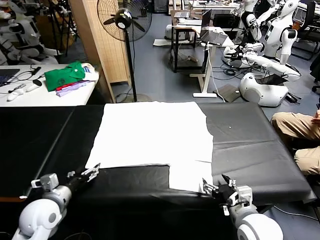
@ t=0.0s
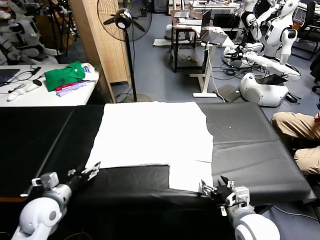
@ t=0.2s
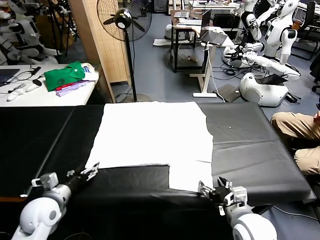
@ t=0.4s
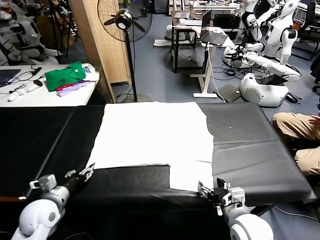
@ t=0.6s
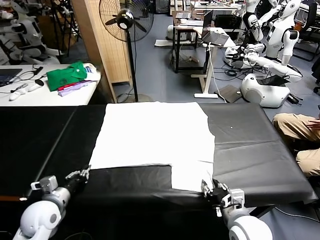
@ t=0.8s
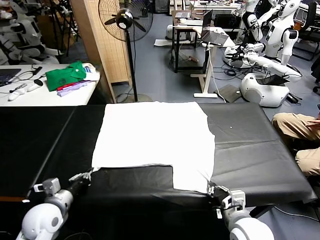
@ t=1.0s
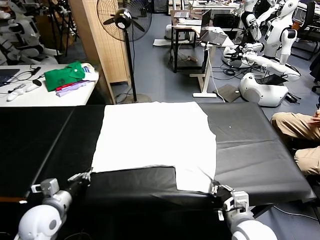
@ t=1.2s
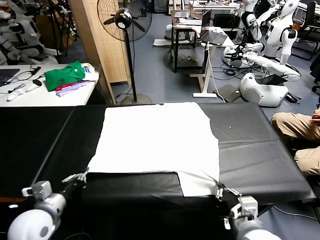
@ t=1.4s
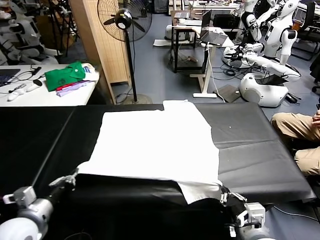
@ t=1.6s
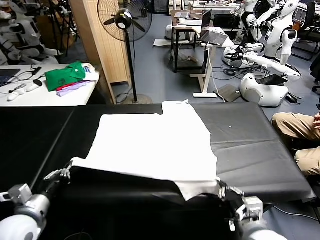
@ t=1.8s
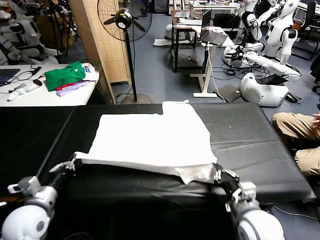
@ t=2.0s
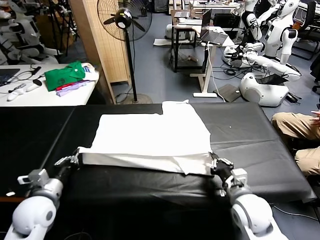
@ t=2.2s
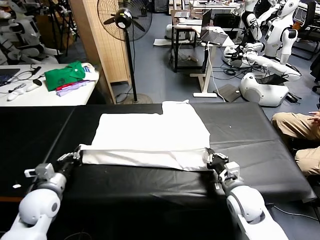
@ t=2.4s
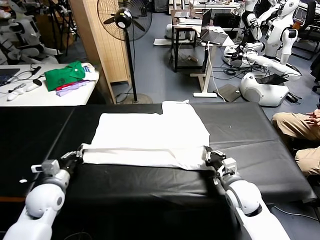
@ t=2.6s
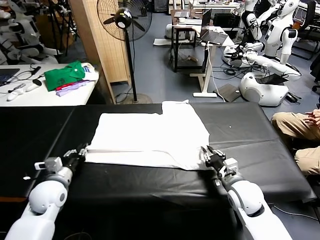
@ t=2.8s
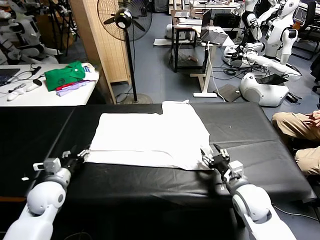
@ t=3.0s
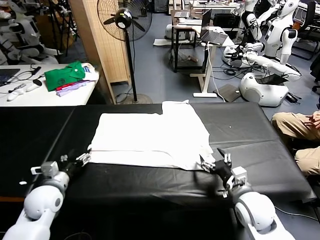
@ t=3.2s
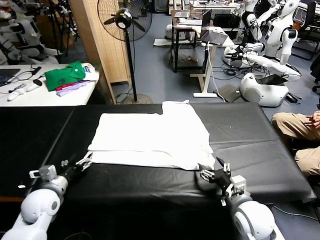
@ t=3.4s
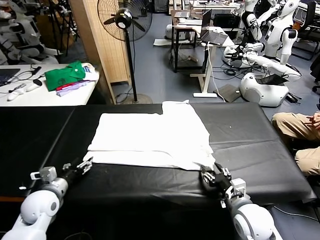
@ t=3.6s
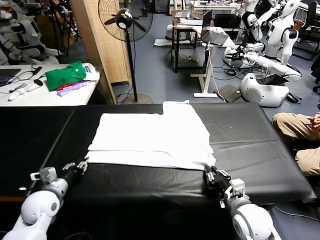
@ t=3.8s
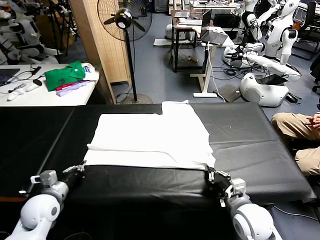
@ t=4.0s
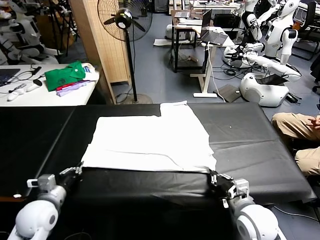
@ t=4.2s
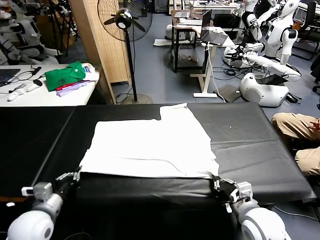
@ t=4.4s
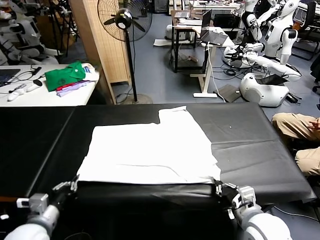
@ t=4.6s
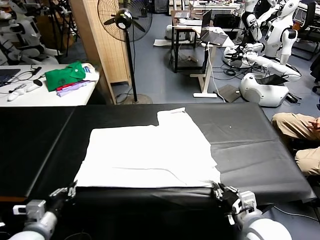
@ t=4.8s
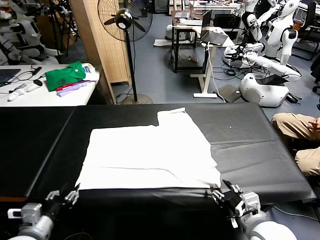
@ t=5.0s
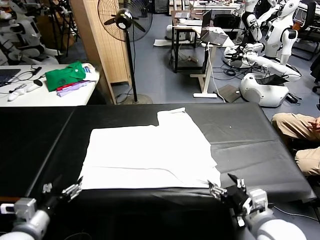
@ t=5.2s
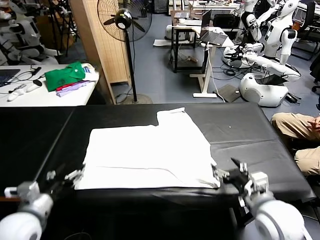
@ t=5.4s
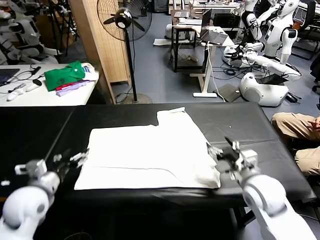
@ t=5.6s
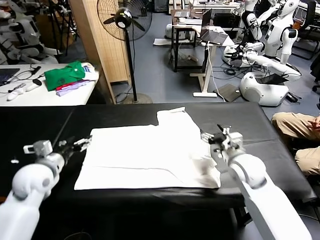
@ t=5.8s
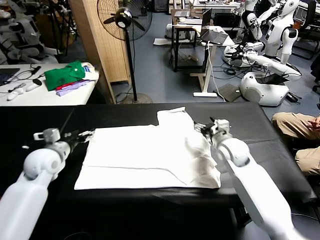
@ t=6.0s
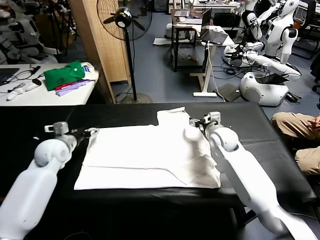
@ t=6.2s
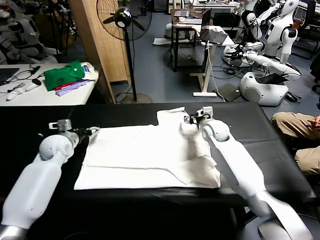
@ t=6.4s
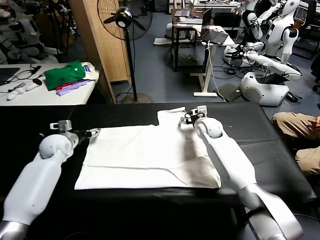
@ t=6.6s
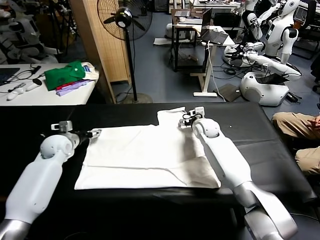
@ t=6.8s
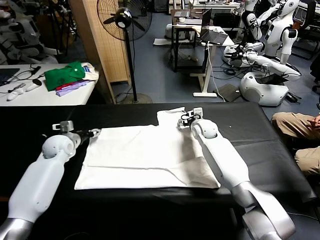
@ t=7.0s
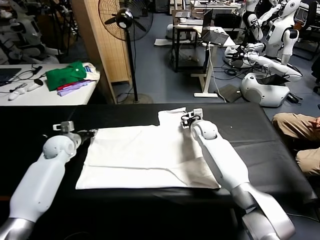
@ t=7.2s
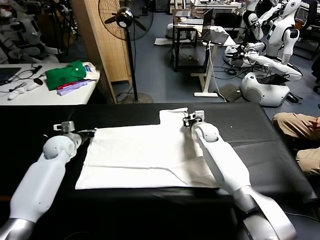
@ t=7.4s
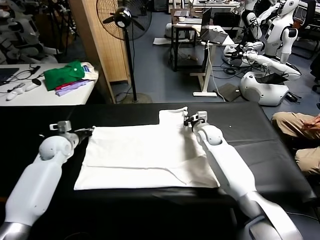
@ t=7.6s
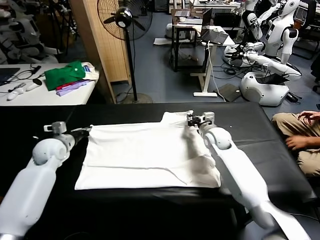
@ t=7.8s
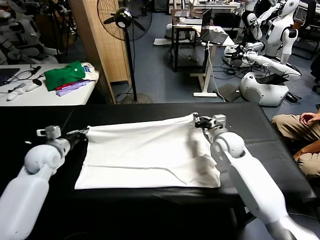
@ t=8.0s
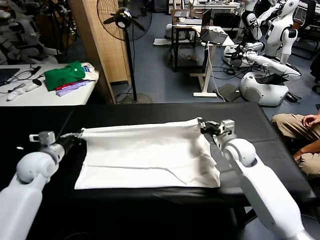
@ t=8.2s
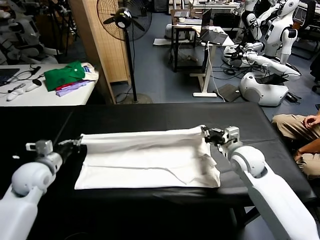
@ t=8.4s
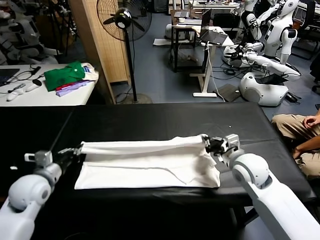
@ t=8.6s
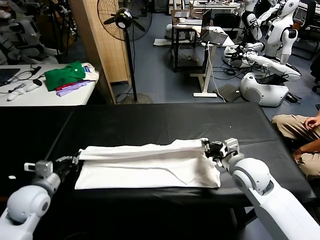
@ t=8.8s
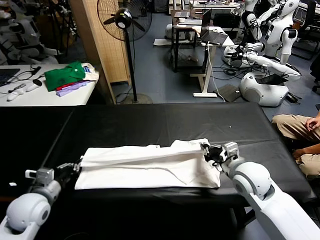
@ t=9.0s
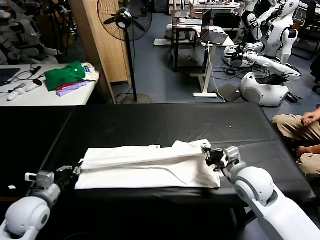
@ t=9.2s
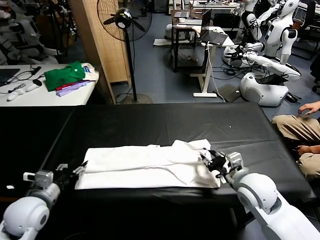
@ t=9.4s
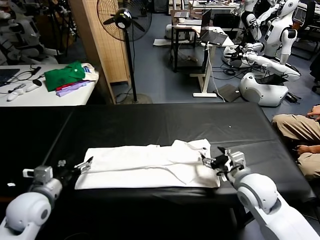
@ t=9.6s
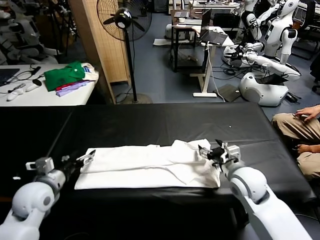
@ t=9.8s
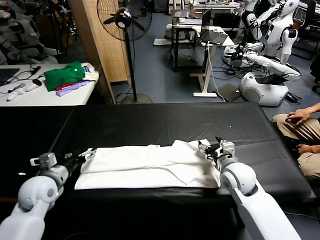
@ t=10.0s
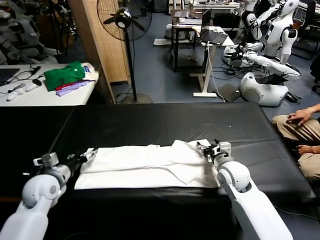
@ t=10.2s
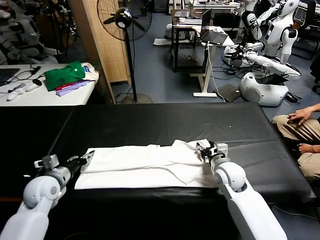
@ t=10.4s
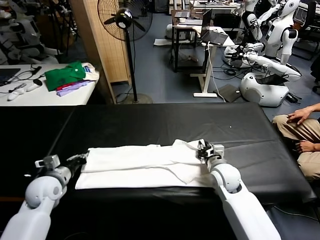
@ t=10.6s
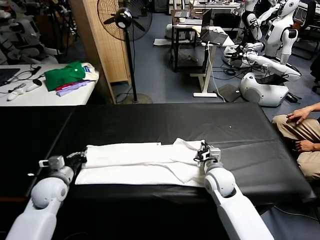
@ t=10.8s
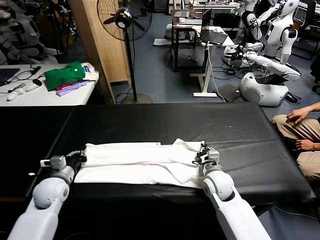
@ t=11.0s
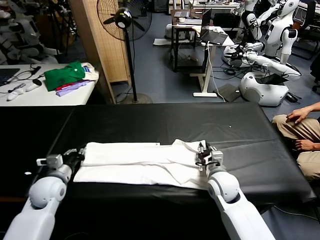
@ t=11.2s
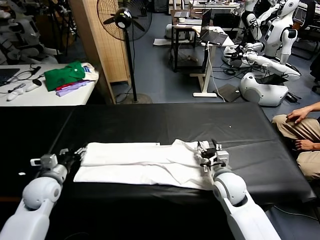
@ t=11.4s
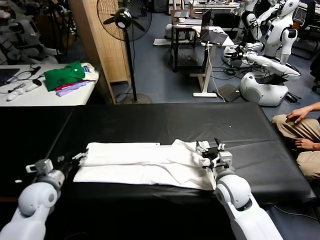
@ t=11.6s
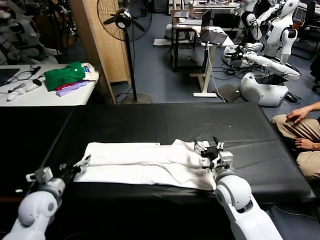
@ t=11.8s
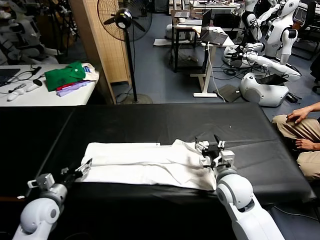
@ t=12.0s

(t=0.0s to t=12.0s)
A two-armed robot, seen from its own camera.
Task of the whole recording: fold and organize the clothes.
Step, t=0.0s - t=1.0s: use both grippers simultaneously to clamp the lower edge of the clothing fabric.
Step, t=1.2s - t=2.8s: use both grippers to drag the lower edge of the fabric forward and fold it over the upper edge.
Step, t=3.0s - t=5.0s: Drag the clothes downward with both gripper.
Step, t=5.2s - t=7.4s: use both grippers simultaneously to clamp the upper edge of the clothing fabric.
Step, t=7.6s - t=9.4s: use both grippers to drag the upper edge of the fabric backward and fold it over the lower edge.
t=1.6s - t=3.0s: The grippers both shift forward and downward by about 15 cm. The left gripper opens up. The right gripper opens up.
t=3.0s - t=4.4s: The left gripper shifts approximately 10 cm backward, and closes up. Meanwhile the right gripper heads backward, covering approximately 5 cm, and closes its fingers.
t=4.4s - t=6.0s: The grippers both shift forward by approximately 25 cm. The right gripper opens. The left gripper opens.
t=6.0s - t=7.6s: The right gripper closes its fingers, while the left gripper moves forward, about 5 cm, and closes its fingers.
t=7.6s - t=9.0s: Both grippers travel together backward, roughly 20 cm.
t=9.0s - t=10.4s: The right gripper travels downward and forward by some 10 cm, and opens; the left gripper moves forward, roughly 5 cm, and opens its fingers.
t=10.4s - t=12.0s: Both grippers travel together backward, approximately 5 cm. The right gripper opens its fingers. Meanwhile the left gripper opens.

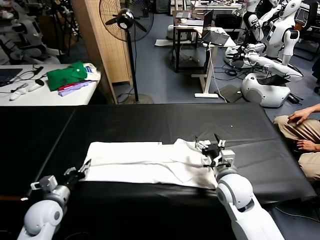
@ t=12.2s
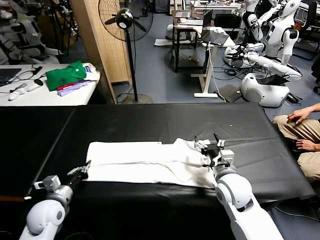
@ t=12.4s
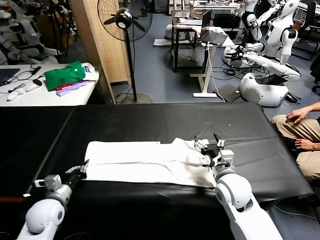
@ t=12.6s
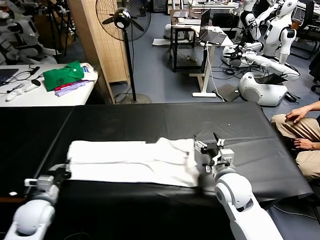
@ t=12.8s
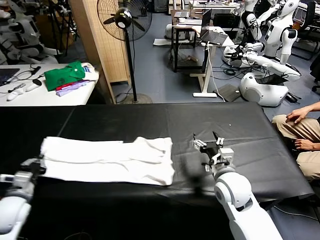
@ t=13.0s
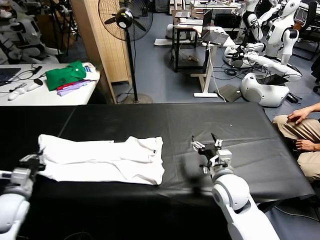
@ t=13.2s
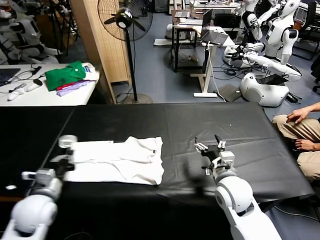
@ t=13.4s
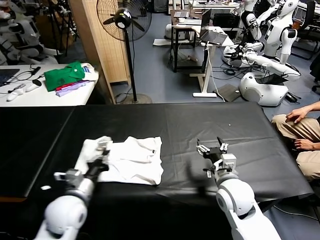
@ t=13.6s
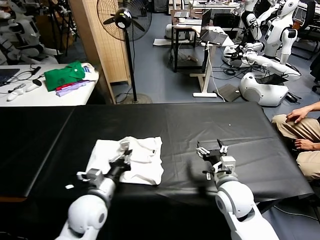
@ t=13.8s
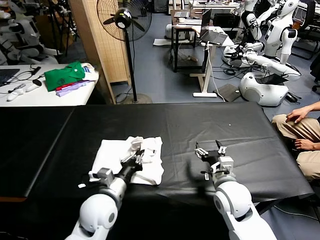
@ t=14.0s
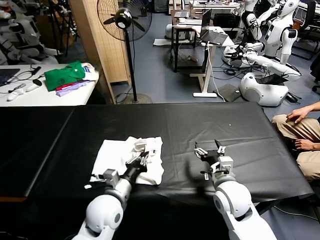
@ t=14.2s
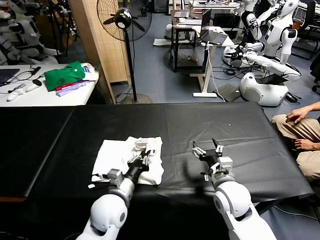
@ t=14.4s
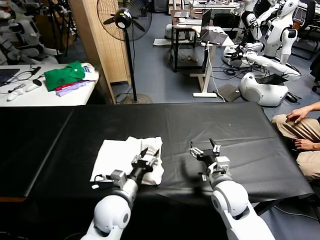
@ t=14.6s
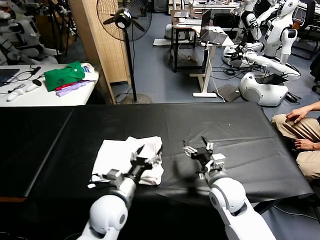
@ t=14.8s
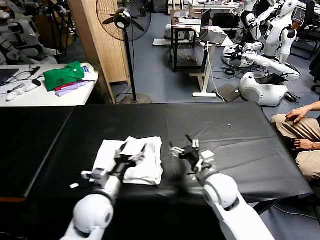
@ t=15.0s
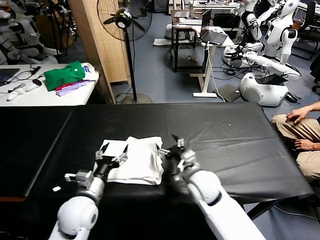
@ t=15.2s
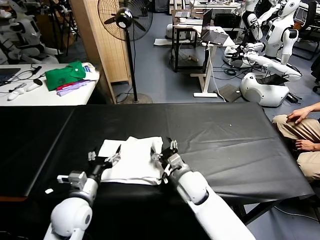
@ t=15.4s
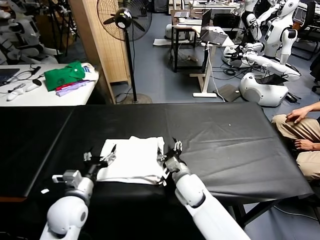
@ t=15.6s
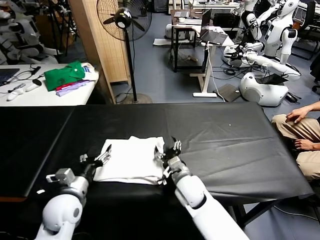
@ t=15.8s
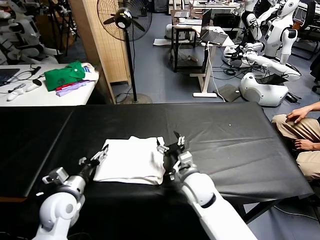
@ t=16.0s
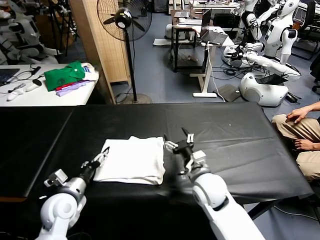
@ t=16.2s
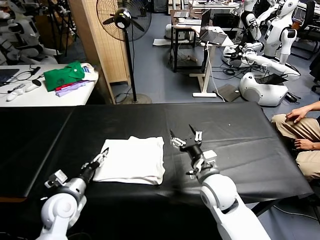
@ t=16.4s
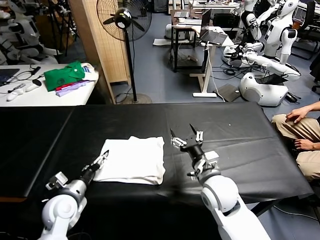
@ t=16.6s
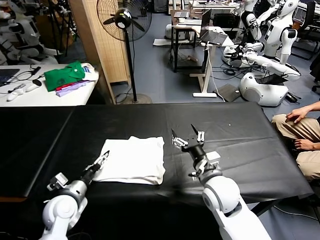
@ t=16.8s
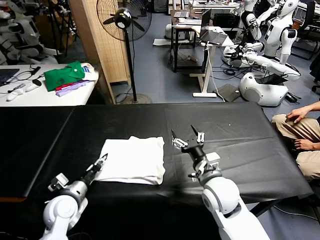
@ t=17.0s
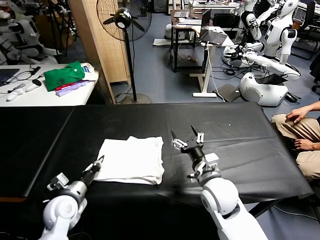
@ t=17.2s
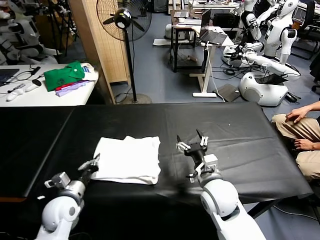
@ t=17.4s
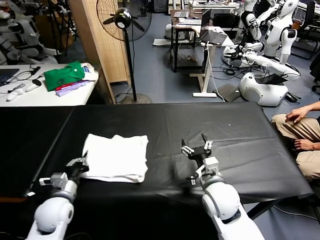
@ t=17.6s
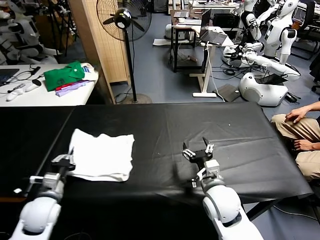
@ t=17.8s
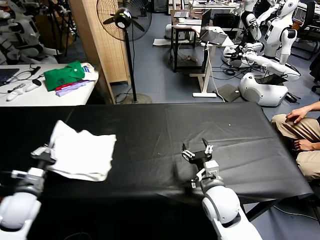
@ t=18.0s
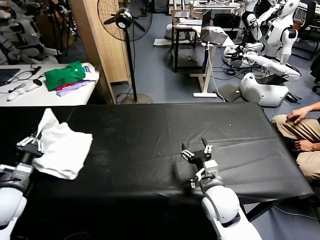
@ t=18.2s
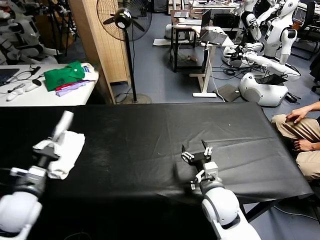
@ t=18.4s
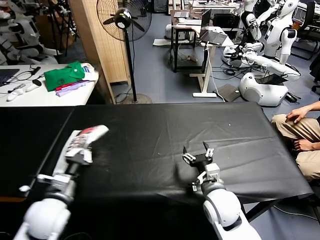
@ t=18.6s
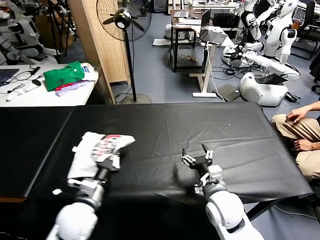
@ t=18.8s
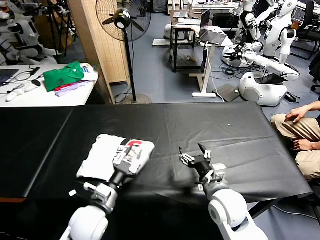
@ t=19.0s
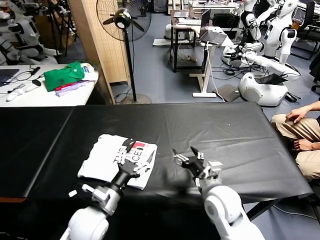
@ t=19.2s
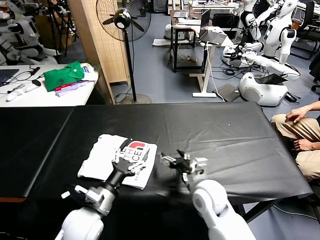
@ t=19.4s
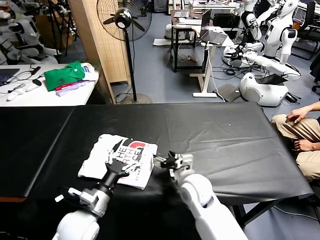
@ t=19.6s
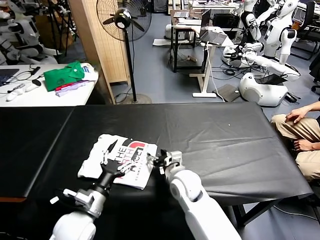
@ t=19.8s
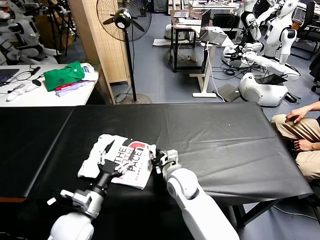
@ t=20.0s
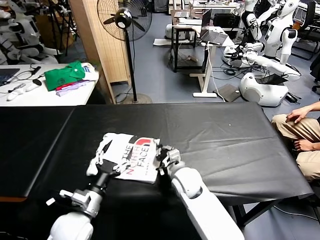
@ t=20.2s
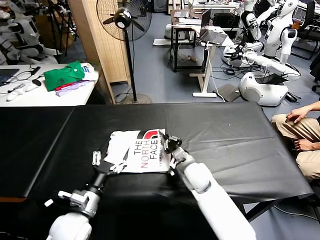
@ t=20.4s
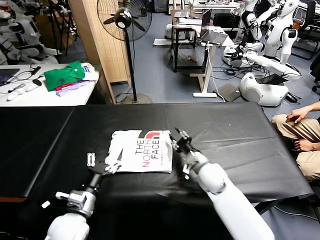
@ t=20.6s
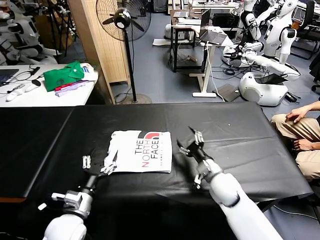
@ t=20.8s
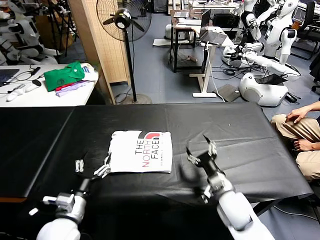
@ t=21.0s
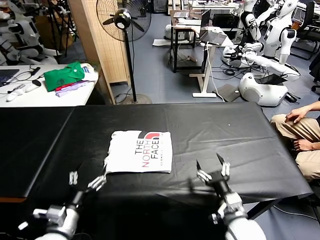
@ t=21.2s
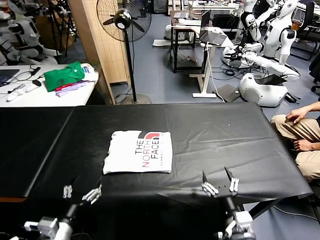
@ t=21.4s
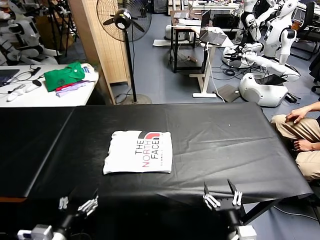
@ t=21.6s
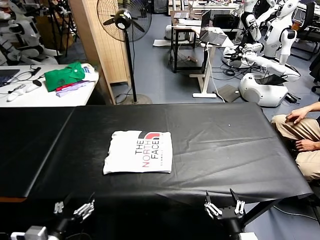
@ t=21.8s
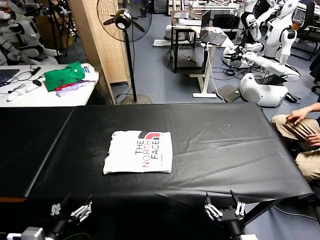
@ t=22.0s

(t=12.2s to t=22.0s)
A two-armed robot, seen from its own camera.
Task of the whole recording: fold and organize the clothes.
Step, t=12.8s - t=14.4s: use the left gripper to drag the left edge of the fabric to the left and folds it over the right edge.
Step, t=14.6s - t=19.0s: Flip the folded clothes over with left gripper.
Step, t=19.2s - t=20.4s: Drag the clothes to the center of the table.
t=12.2s - t=13.6s: The left gripper goes roughly 10 cm to the right and upward, and closes.
t=13.6s - t=15.0s: The left gripper travels to the right by roughly 10 cm, and opens. The right gripper shifts by roughly 5 cm.
t=15.0s - t=16.4s: The right gripper reaches some 10 cm to the left, then returns, while the left gripper shifts approximately 15 cm to the left.
t=16.4s - t=17.8s: The left gripper closes its fingers.
t=17.8s - t=19.2s: The left gripper shifts about 15 cm to the right, and opens up.
t=19.2s - t=20.6s: The right gripper shifts approximately 15 cm forward and downward, and closes. The left gripper goes roughly 5 cm to the left.
t=20.6s - t=22.0s: The right gripper goes about 30 cm backward, and opens. The left gripper heads backward, covering about 10 cm.
